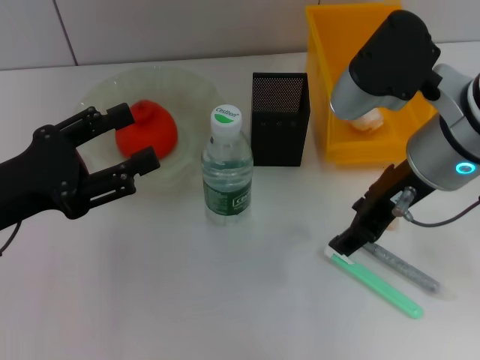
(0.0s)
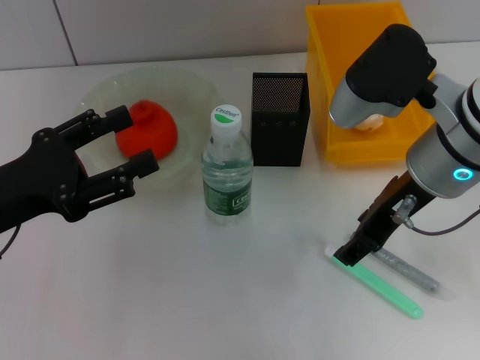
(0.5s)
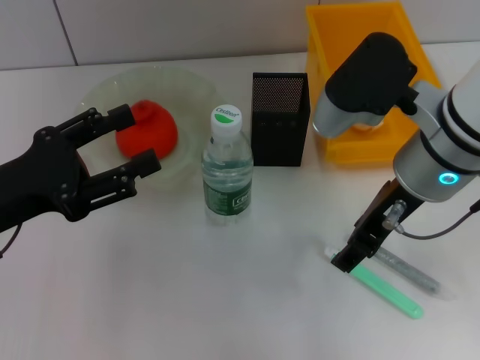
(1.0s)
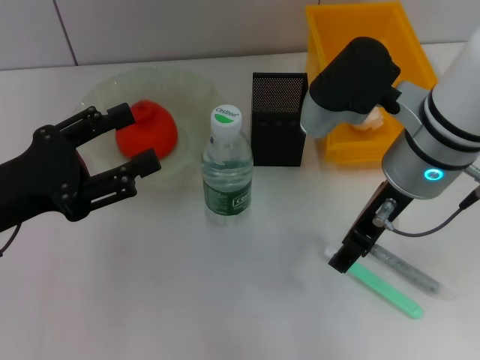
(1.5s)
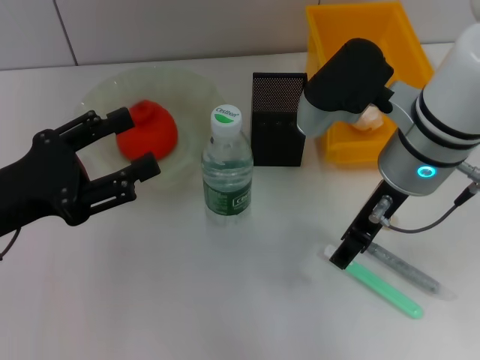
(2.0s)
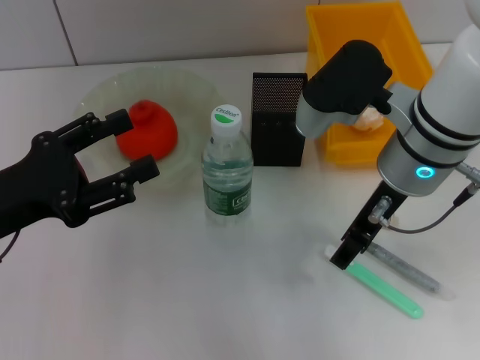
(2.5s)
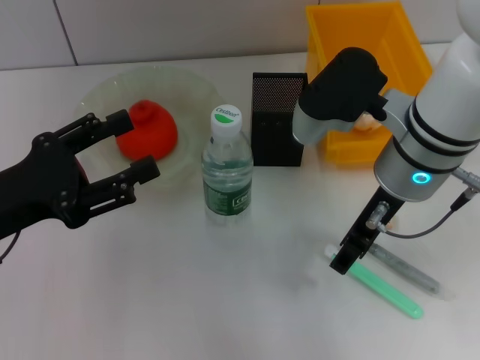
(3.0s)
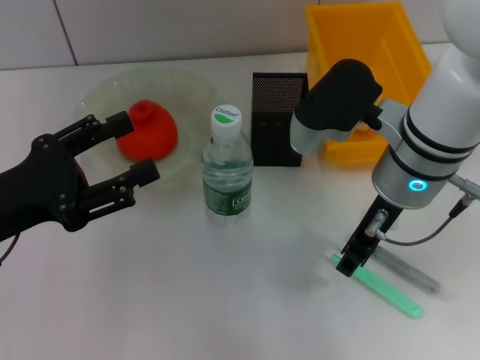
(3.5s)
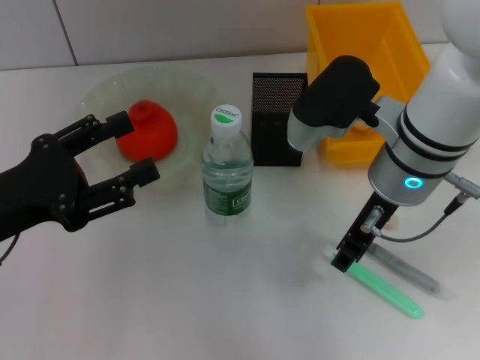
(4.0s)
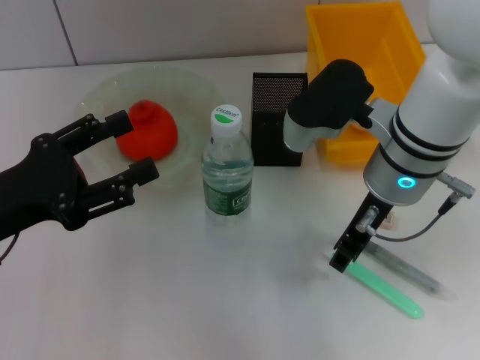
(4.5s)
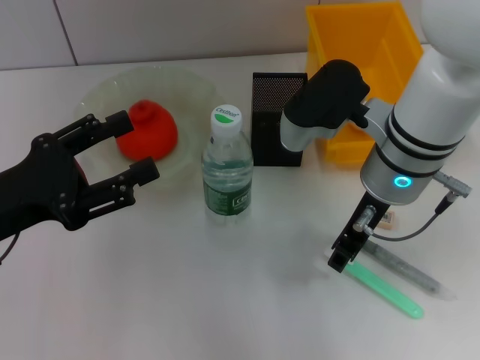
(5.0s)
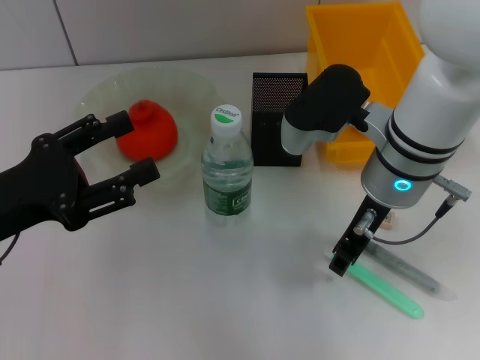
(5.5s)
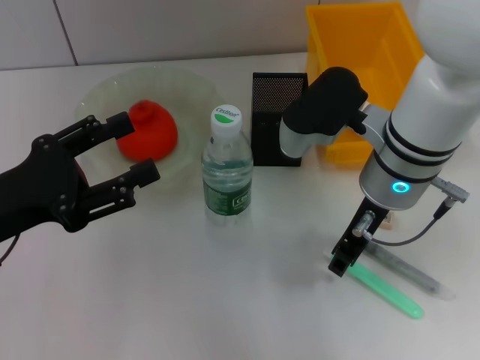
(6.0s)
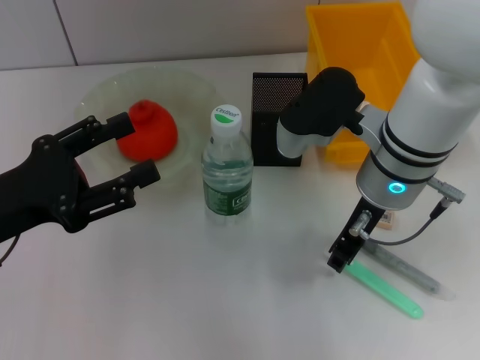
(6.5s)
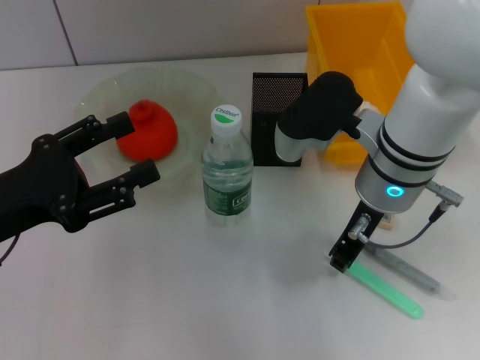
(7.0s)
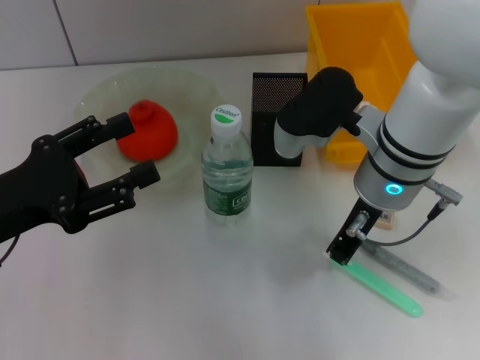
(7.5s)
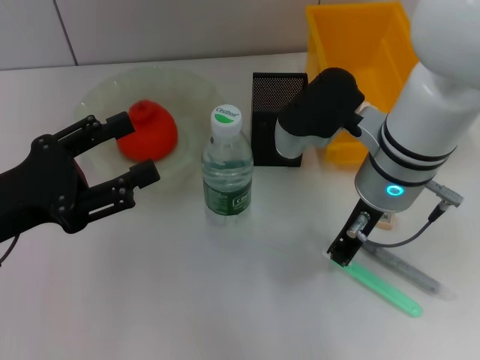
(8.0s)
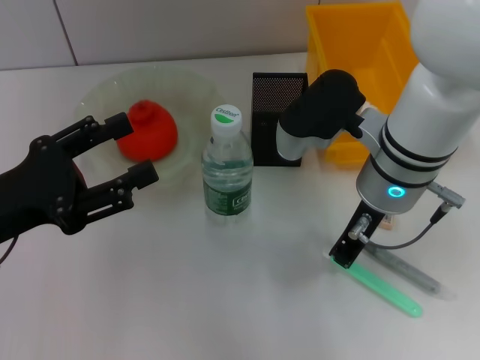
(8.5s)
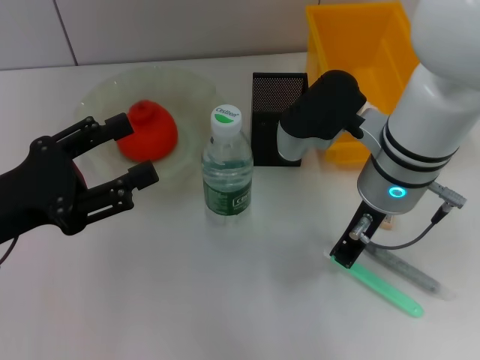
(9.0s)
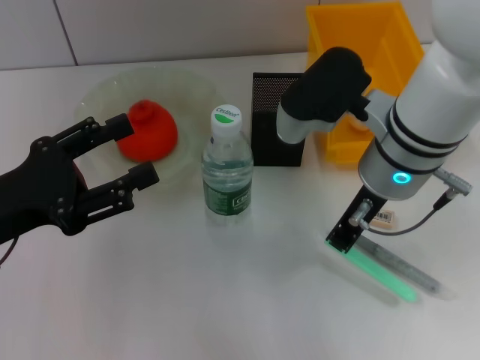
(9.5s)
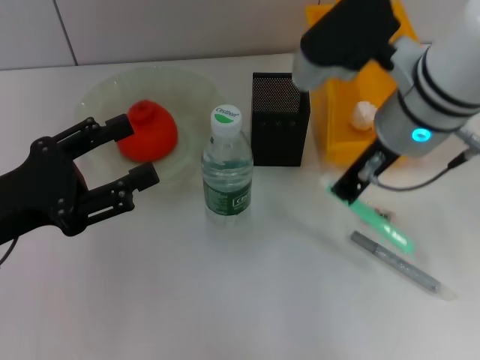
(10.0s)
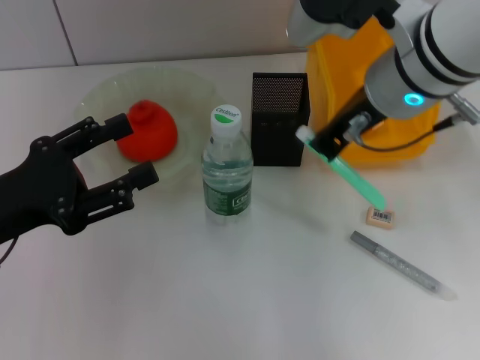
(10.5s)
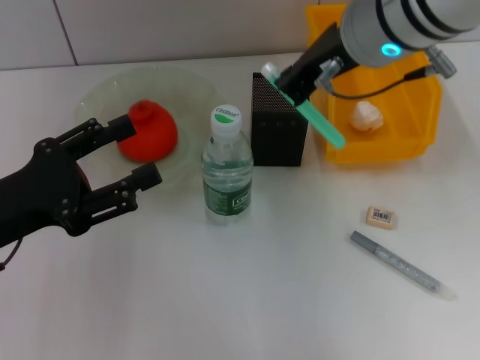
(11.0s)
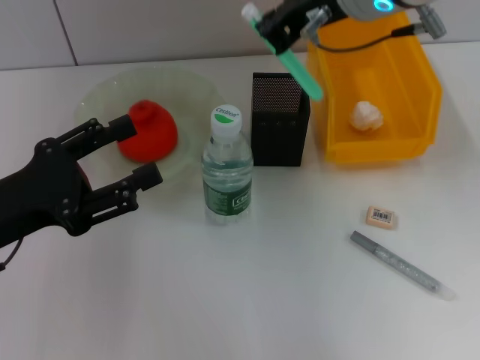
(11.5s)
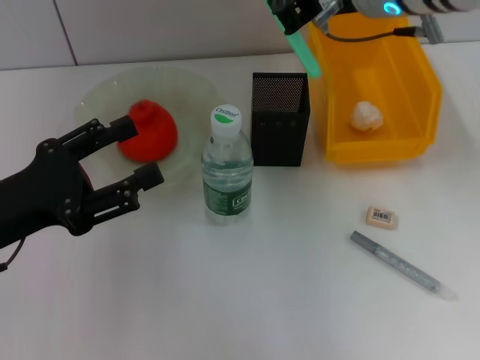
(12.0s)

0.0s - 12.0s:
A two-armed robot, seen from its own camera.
Step, 0.0s - 8.5s: Grab the blue utility knife with the right hand.
0.0s - 4.0s: The grippers make only small movements.
4.0s - 6.0s: The grippers stay close to where they were, moving slightly.
6.0s - 8.0s: The right gripper closes up.
8.0s - 10.0s: The right gripper moves upward, about 5 cm.
10.0s - 12.0s: The right gripper is displaced upward by some 5 cm.

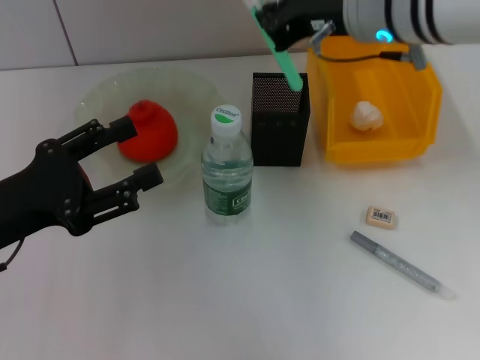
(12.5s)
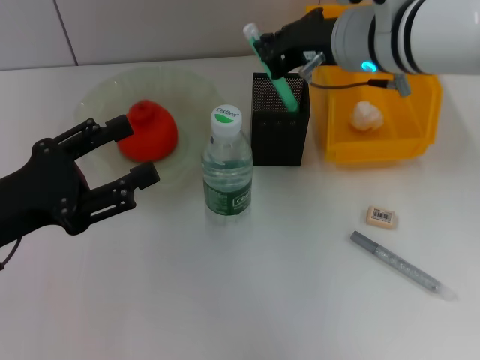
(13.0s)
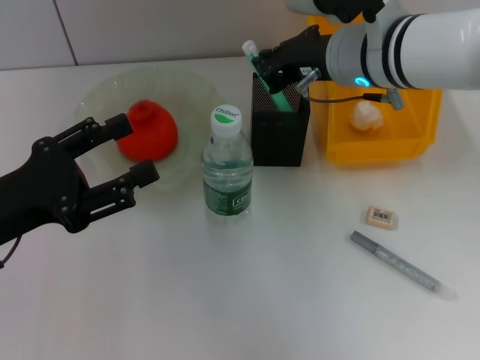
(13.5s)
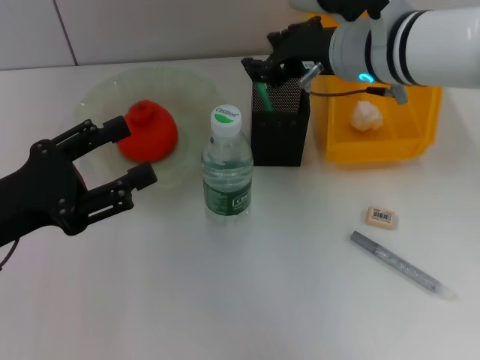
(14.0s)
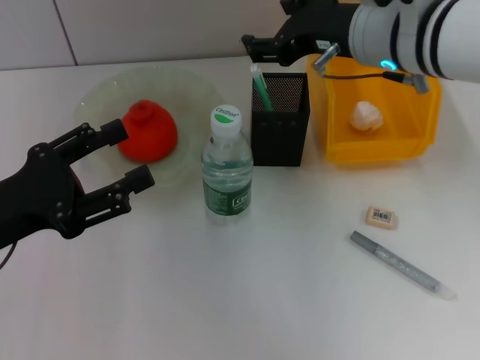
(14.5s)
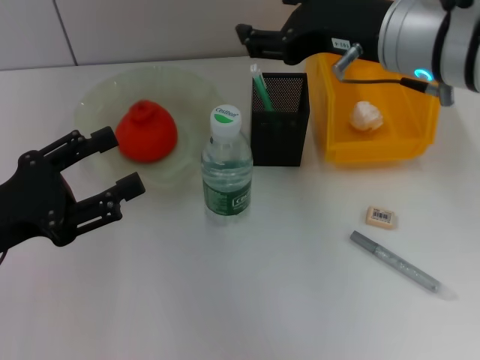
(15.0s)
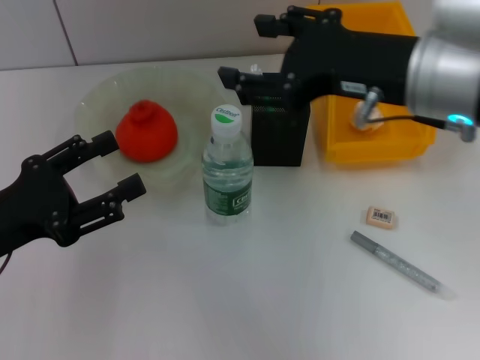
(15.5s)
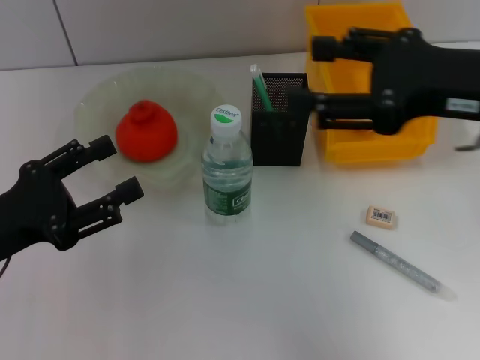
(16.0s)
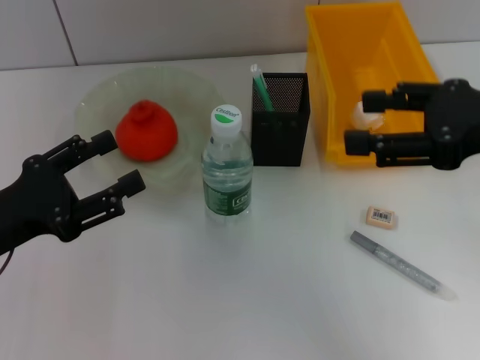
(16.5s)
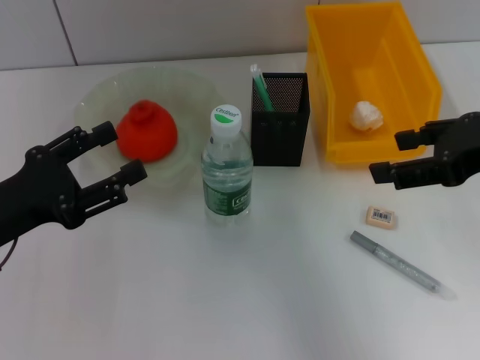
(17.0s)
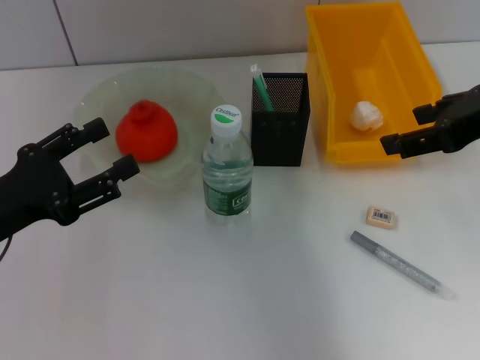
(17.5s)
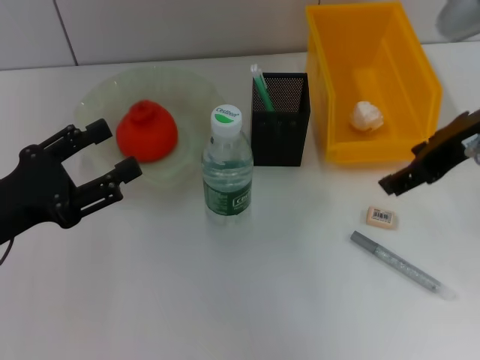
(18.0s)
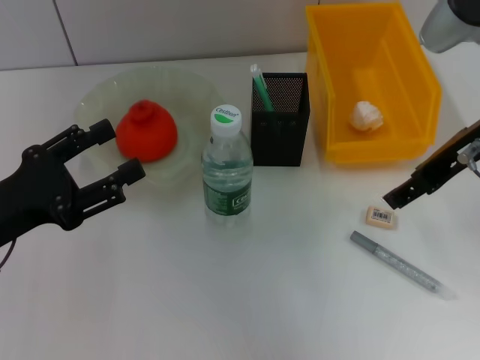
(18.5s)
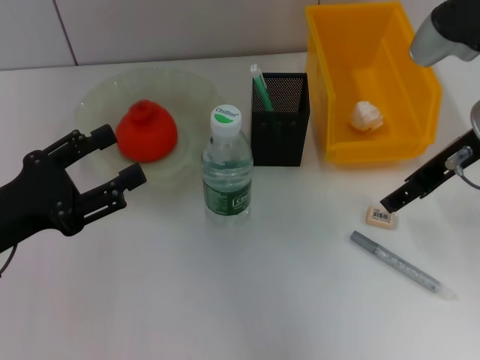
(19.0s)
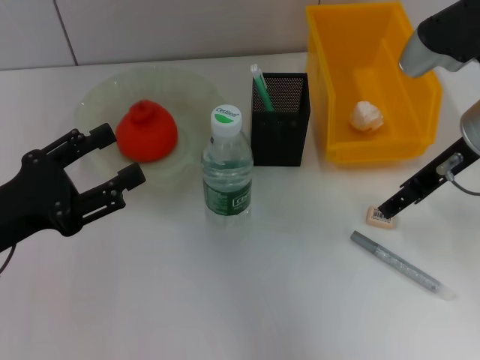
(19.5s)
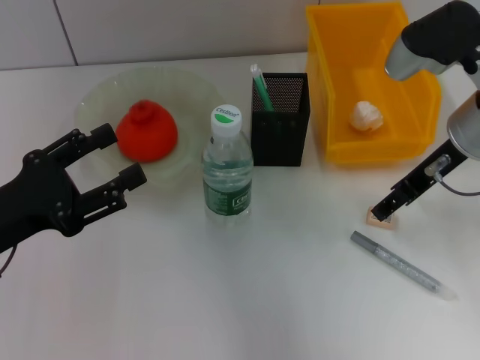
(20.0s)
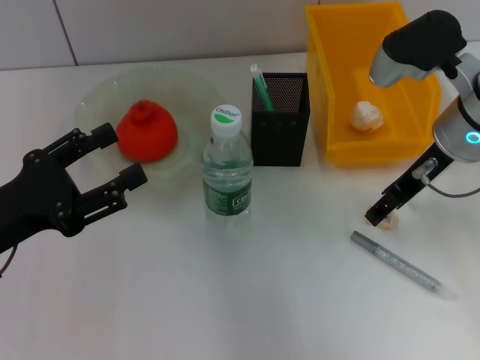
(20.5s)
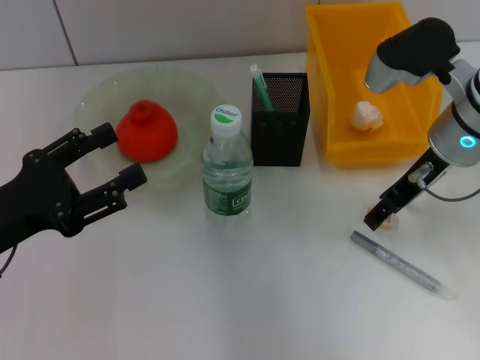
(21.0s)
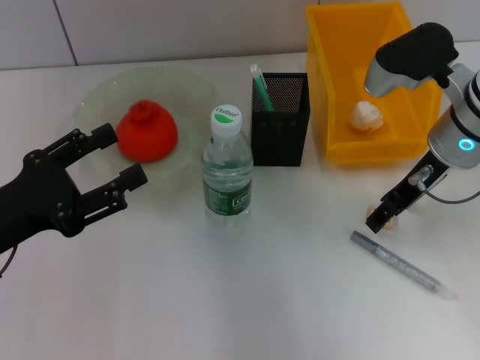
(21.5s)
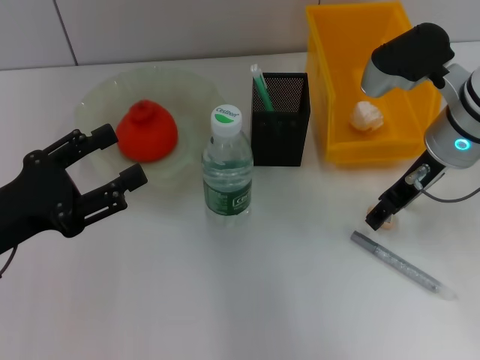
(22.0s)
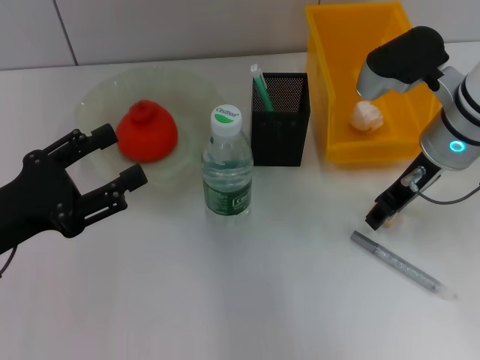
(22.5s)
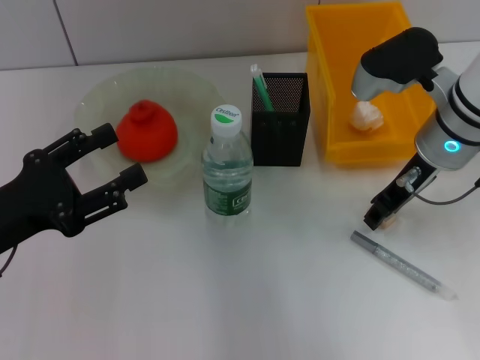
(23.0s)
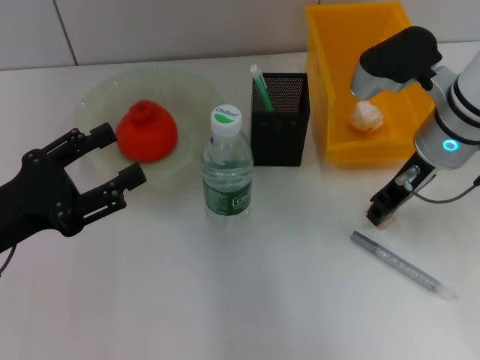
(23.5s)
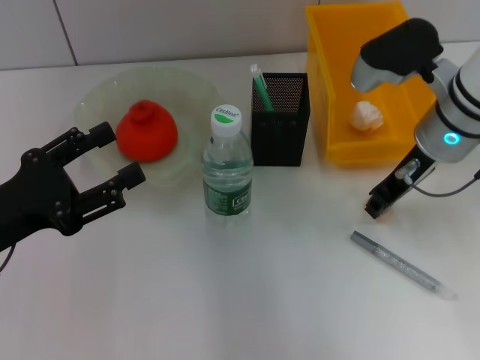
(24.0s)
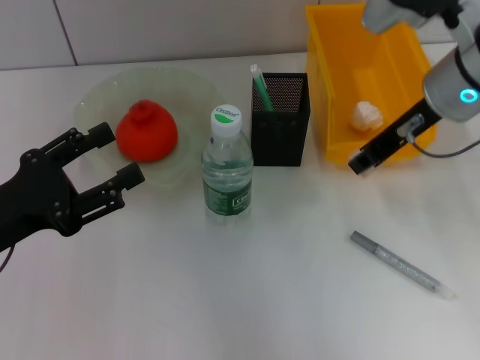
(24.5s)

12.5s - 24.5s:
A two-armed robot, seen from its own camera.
Step, 14.0s - 23.5s: Grab the eraser with the right hand.
12.5s - 14.5s: The right gripper opens.
14.5s - 16.5s: The right gripper moves to the right and backward, roughly 15 cm.
16.5s - 18.5s: The right gripper heads forward, covering some 5 cm.
18.5s - 20.5s: The right gripper goes approximately 5 cm downward.
20.5s - 22.5s: The grippers make only small movements.
22.5s - 24.5s: The right gripper is displaced upward by approximately 5 cm, and closes its fingers.

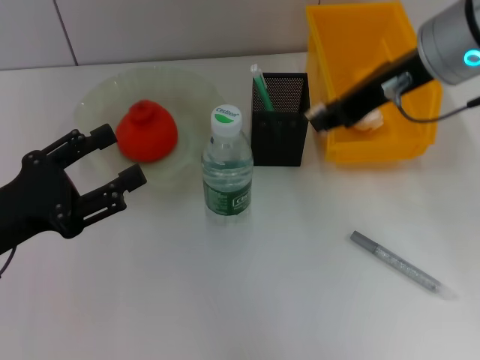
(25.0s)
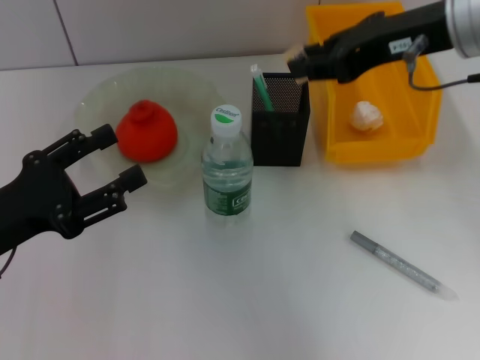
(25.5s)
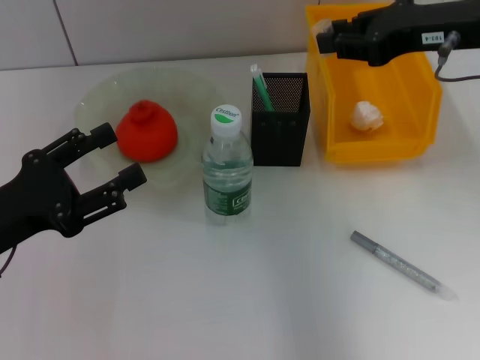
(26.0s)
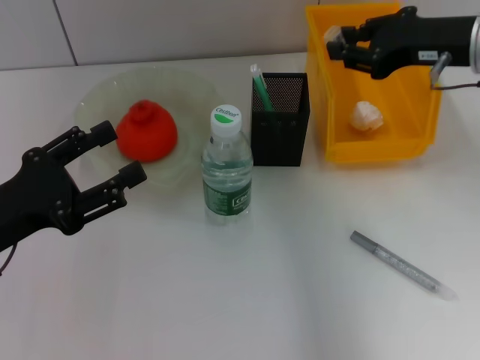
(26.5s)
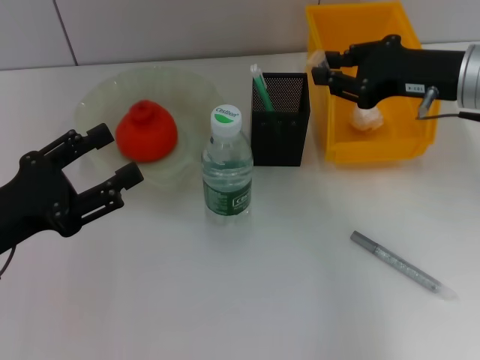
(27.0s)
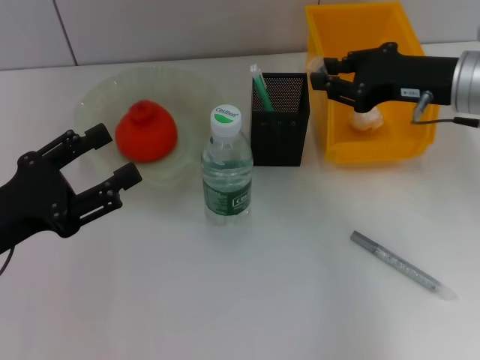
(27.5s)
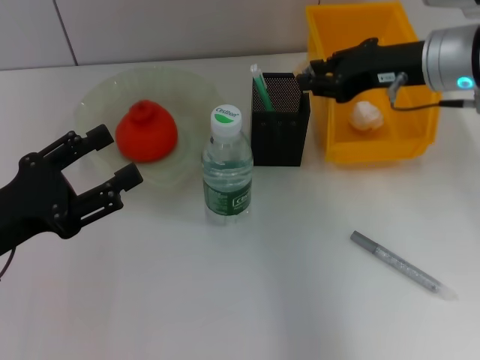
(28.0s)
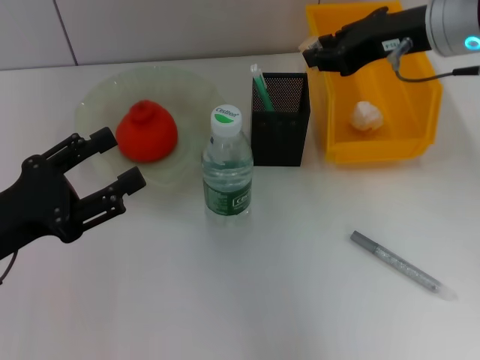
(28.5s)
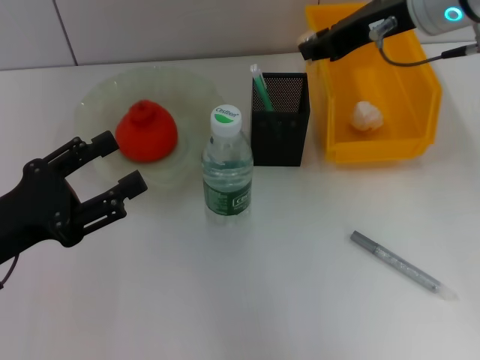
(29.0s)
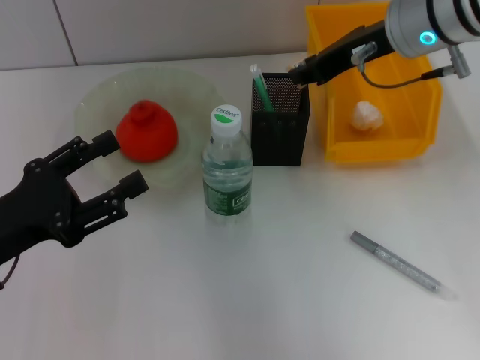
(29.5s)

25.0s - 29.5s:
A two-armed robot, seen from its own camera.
25.0s - 27.0s: The right gripper travels downward and to the right by roughly 10 cm.
27.0s - 29.5s: The right gripper goes about 10 cm to the left and upward.
